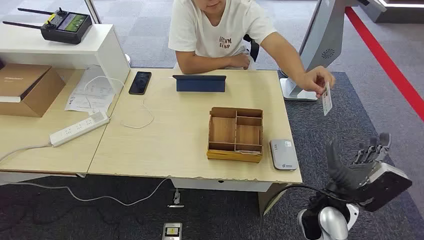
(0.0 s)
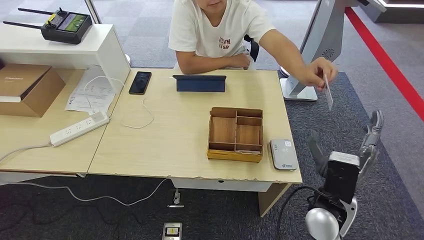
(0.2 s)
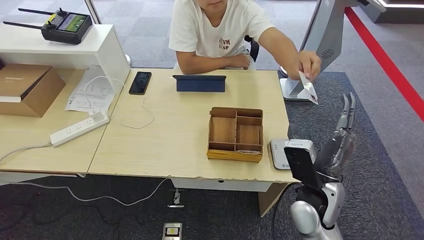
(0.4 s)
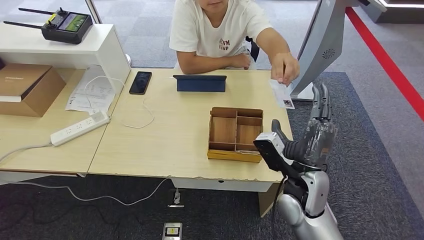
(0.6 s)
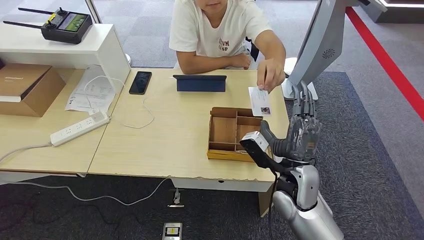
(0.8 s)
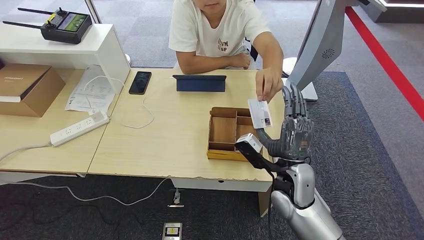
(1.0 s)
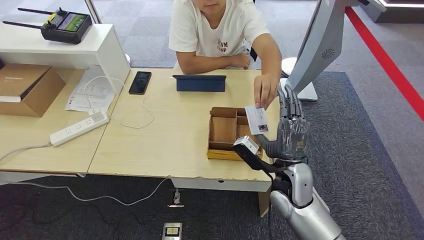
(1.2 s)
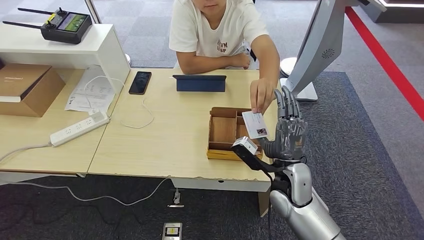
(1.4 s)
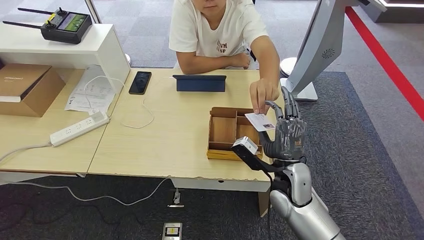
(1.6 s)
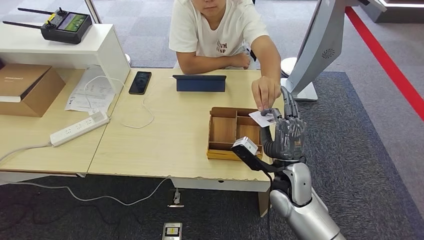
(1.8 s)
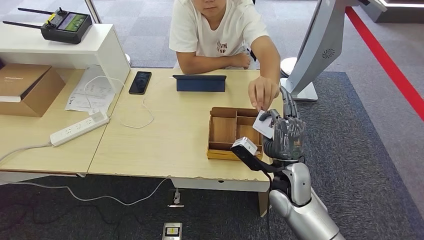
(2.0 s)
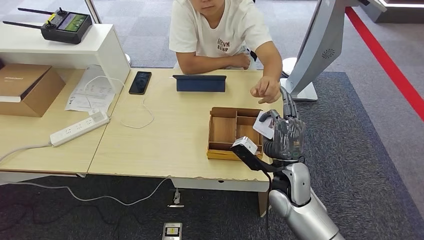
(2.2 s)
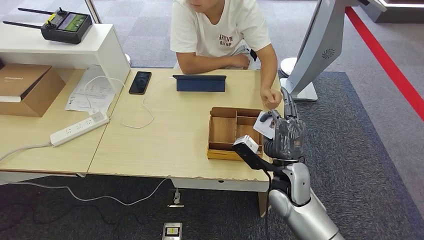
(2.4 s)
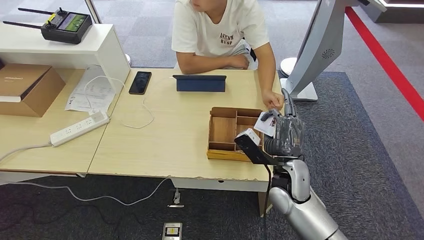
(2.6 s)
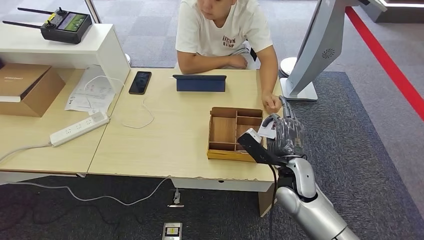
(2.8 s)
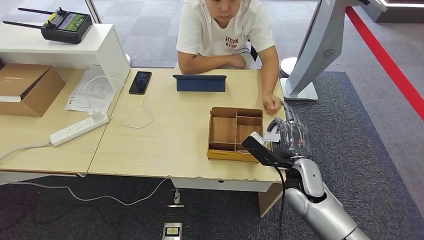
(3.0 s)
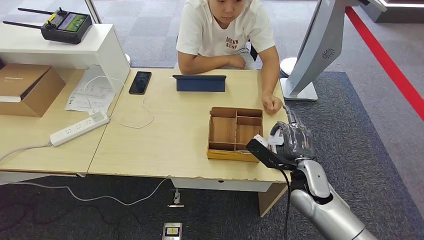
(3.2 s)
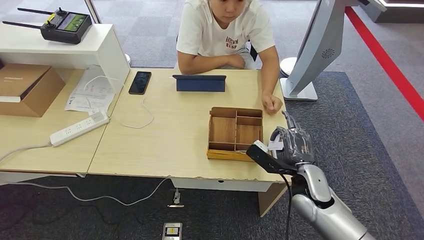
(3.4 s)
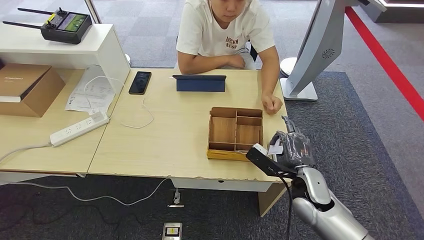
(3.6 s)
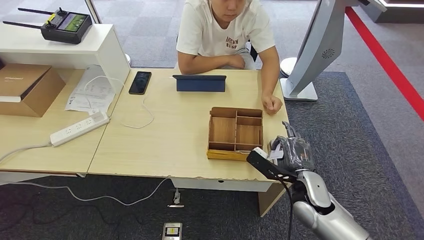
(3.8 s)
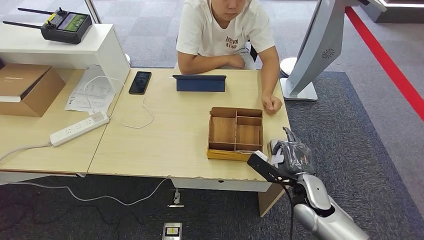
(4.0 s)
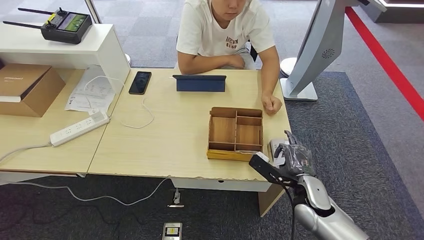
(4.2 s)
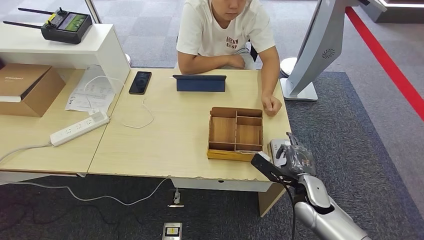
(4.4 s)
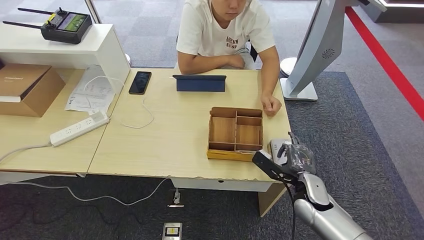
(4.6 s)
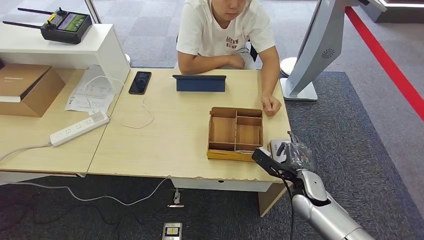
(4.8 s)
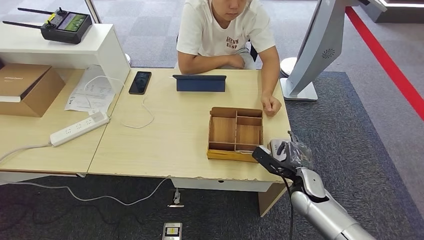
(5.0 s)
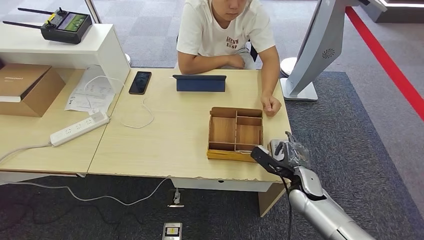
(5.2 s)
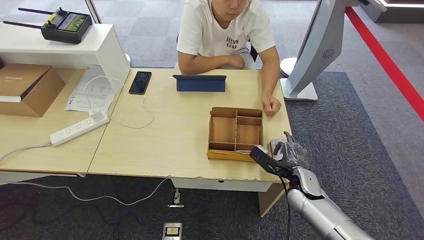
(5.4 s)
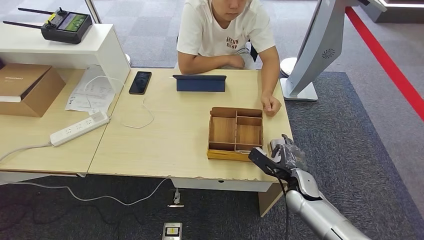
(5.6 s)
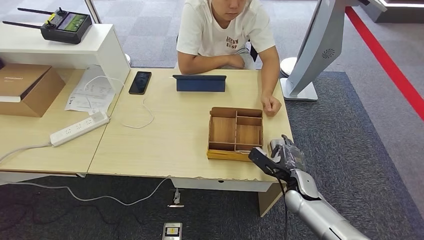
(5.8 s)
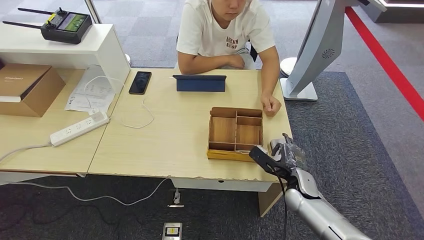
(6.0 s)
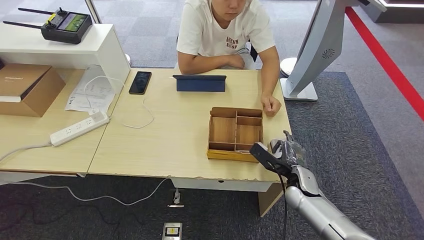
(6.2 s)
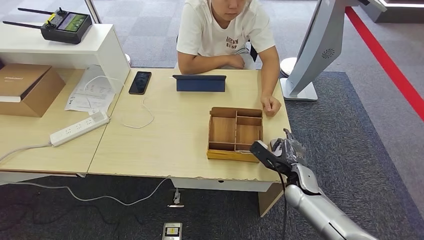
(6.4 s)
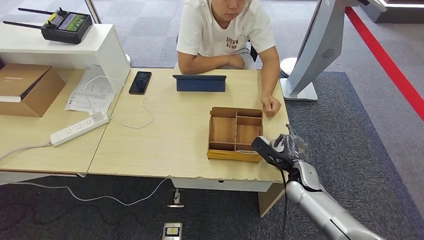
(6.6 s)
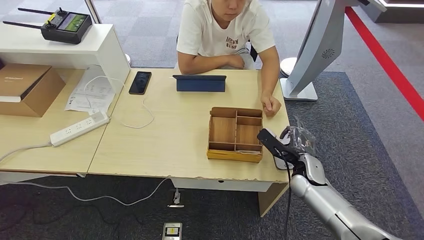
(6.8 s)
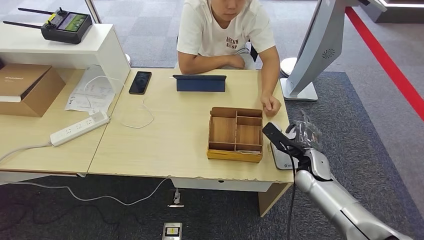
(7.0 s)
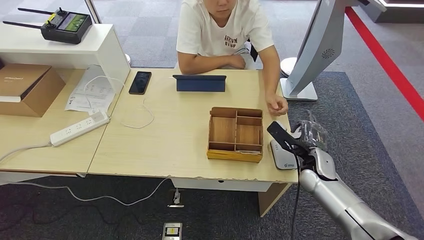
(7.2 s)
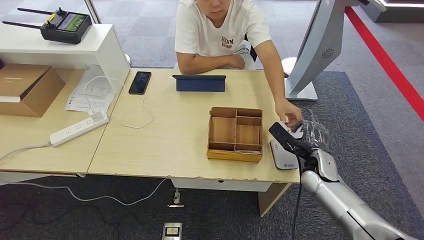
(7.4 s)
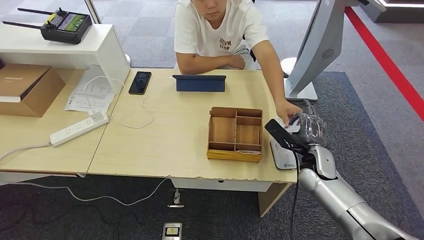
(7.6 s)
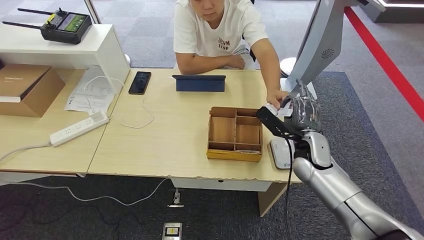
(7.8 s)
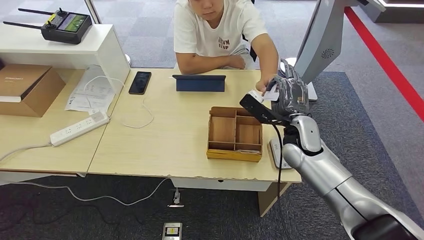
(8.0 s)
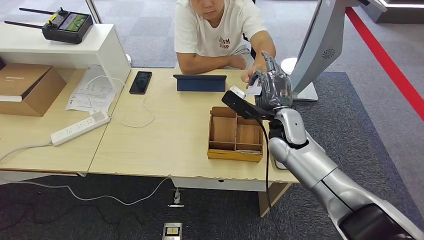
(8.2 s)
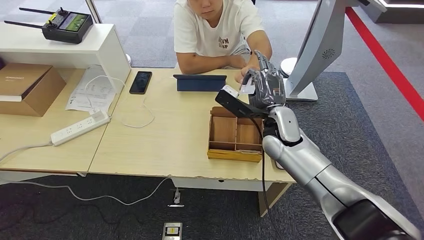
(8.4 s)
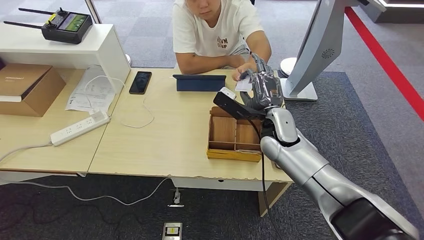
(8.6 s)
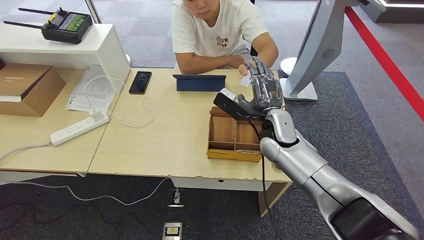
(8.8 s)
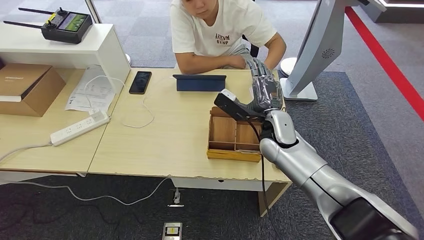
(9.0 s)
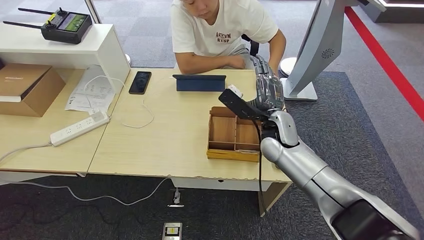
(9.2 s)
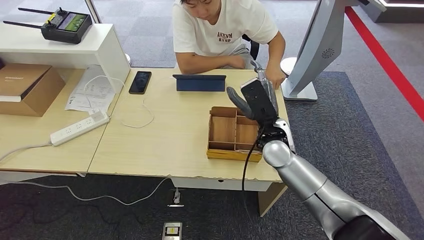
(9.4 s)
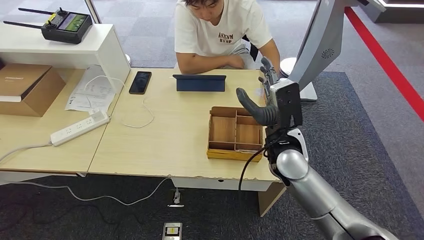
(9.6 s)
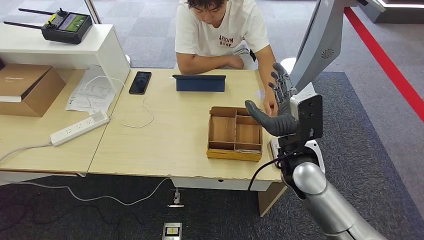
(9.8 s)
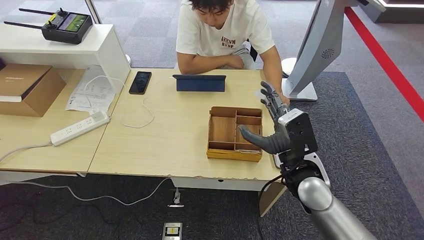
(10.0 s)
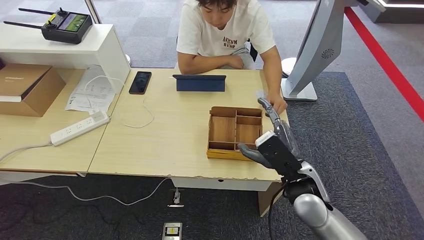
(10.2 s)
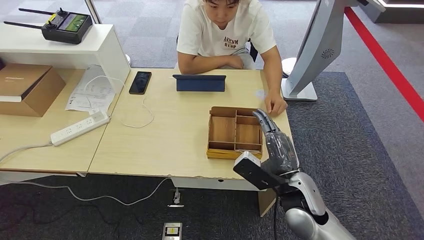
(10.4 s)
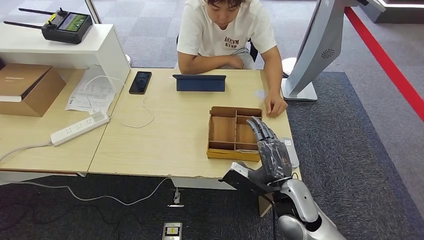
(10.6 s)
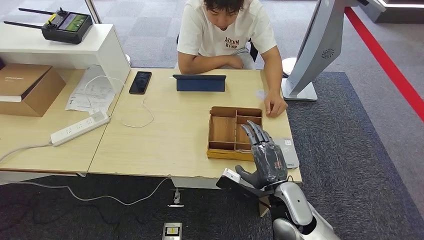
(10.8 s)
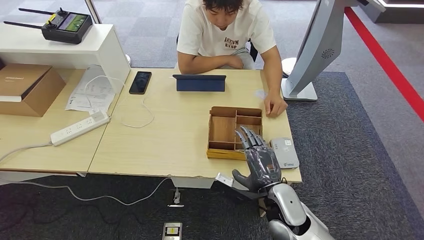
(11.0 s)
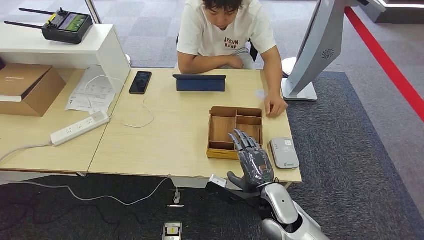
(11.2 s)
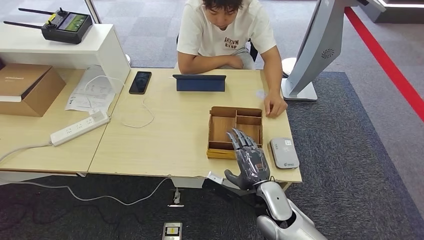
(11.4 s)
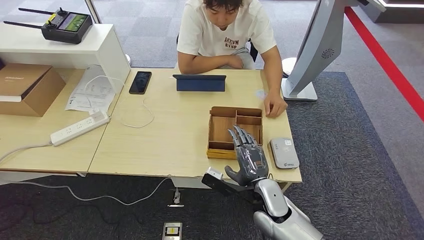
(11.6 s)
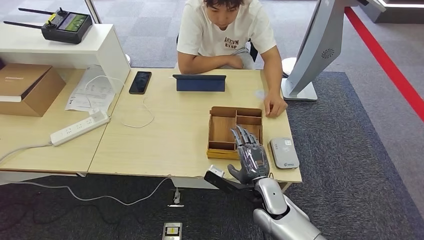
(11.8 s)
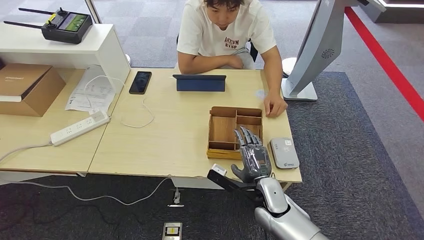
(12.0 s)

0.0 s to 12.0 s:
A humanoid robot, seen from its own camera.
Step, 0.0 to 2.2 s: Take the ID card from the person's hand.
Step, 2.6 to 7.2 s: Place the ID card on the card reader.
Step, 7.4 to 9.6 s: Hand the ID card to the person.
1.6 to 3.0 s: The right hand moves roughly 5 cm.
3.0 to 4.4 s: The right hand moves downward, about 5 cm.
4.4 to 6.0 s: The hands stay close to where they were, moving slightly.
6.0 to 7.6 s: The right hand shifts roughly 5 cm upward.
7.6 to 9.0 s: The right hand travels to the left, upward and forward by approximately 15 cm.
9.0 to 10.4 s: The right hand goes about 15 cm backward.
10.4 to 12.0 s: The right hand moves downward, some 10 cm.

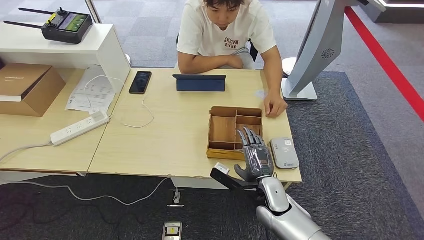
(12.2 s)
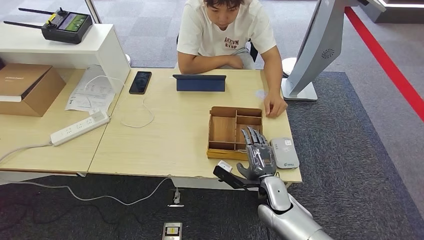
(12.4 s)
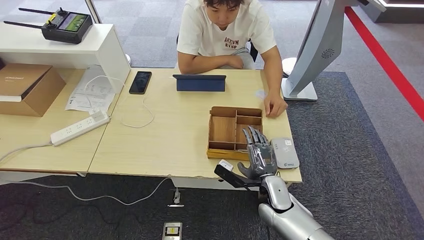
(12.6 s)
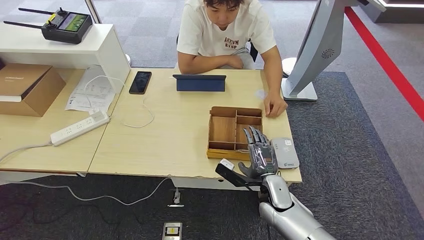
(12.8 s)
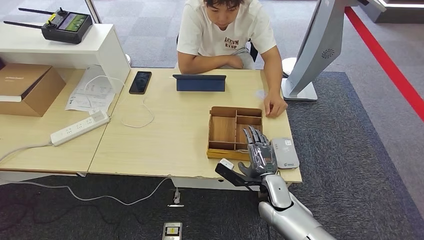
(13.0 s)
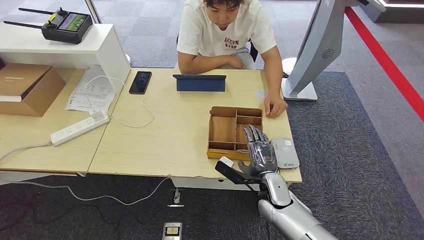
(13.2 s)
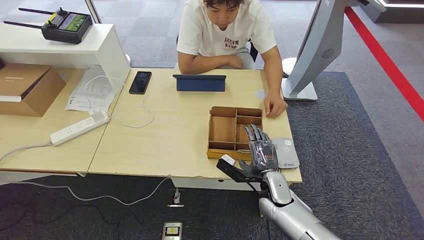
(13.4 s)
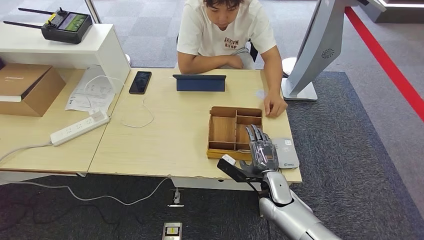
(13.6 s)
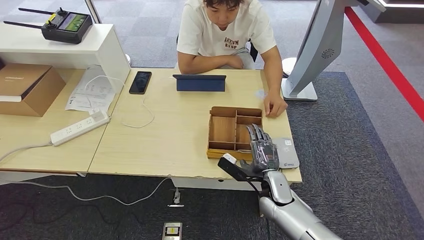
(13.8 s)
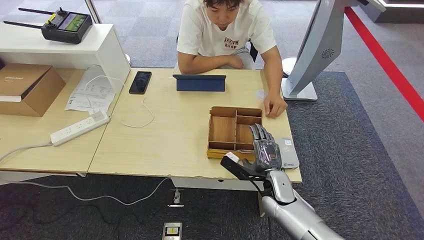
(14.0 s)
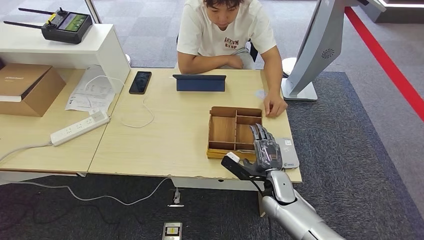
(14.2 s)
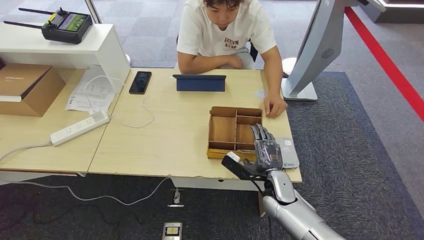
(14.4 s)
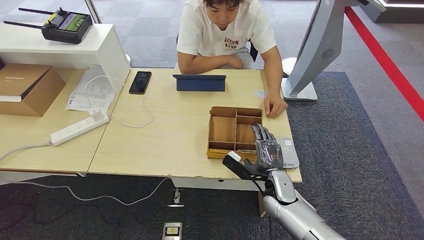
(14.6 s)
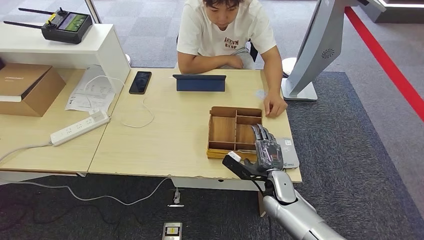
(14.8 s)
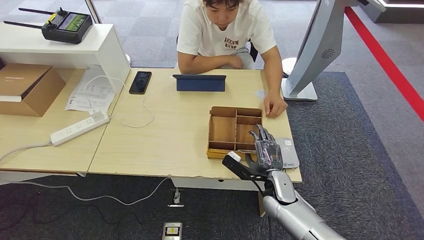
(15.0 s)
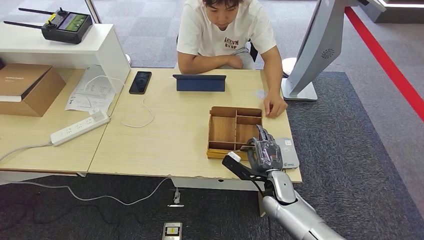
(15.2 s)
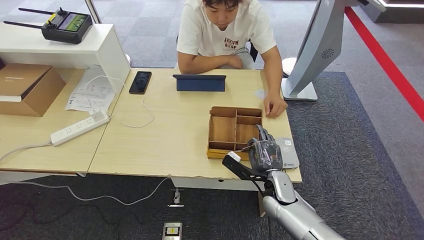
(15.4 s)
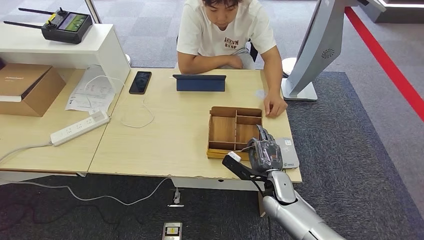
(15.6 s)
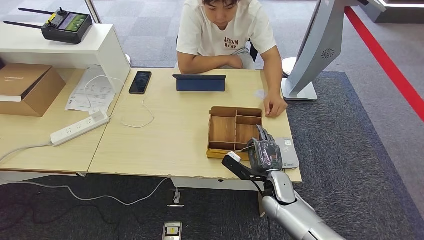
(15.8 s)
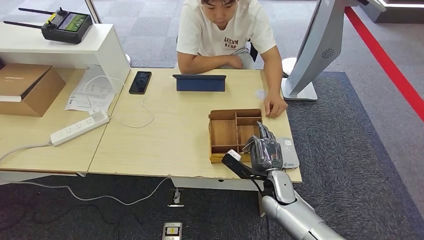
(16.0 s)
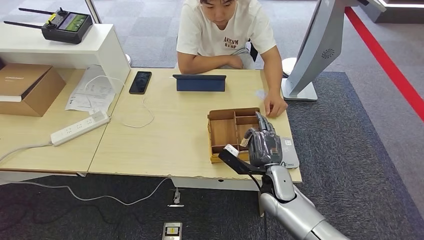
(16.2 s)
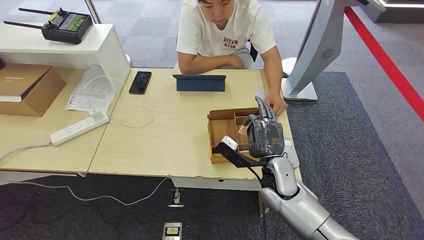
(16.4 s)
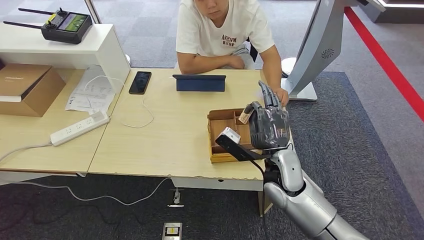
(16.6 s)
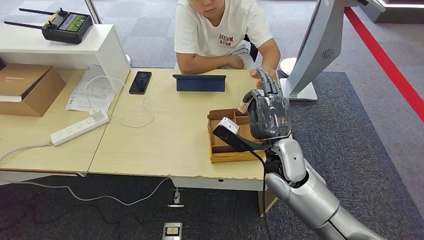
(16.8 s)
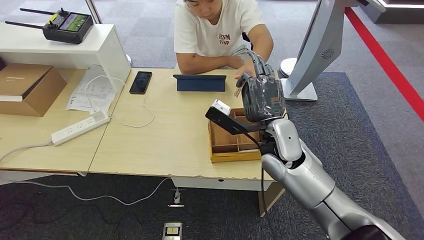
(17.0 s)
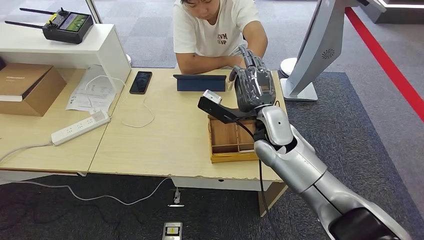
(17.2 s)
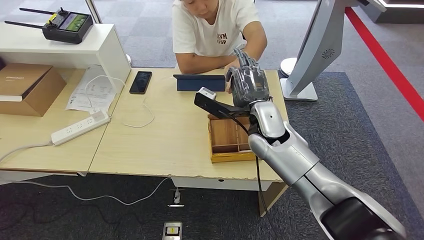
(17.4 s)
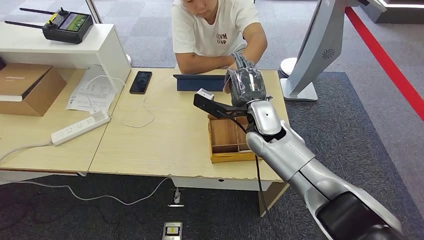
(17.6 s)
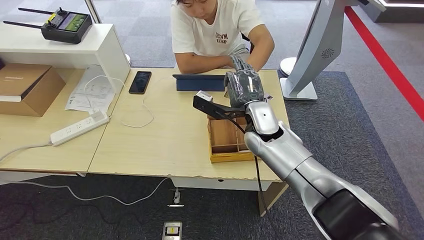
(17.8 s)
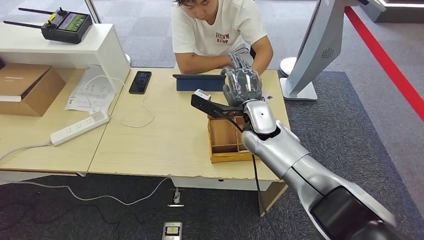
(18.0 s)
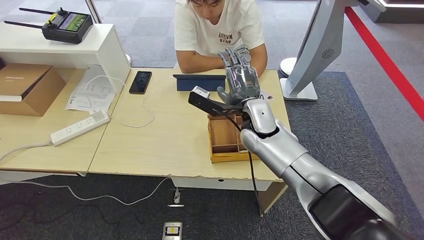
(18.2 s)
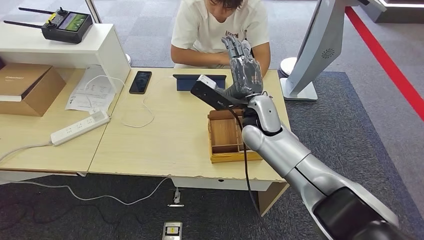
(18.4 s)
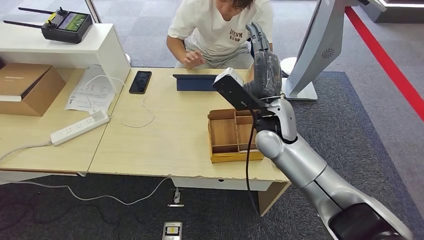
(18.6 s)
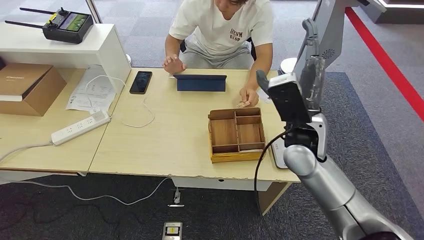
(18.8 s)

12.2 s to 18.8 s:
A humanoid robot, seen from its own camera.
Step, 14.4 to 16.6 s: Pick up the room key from the key card box.
12.2 to 13.8 s: The hands move only a little.
13.8 to 15.4 s: Both hands stay about where they are.
15.4 to 17.2 s: The right hand goes approximately 20 cm upward and forward.
17.2 to 18.8 s: The right hand moves approximately 5 cm.
